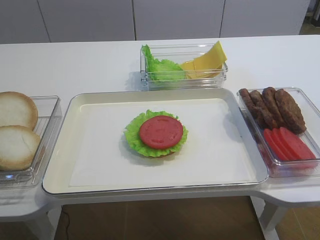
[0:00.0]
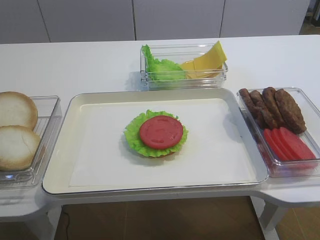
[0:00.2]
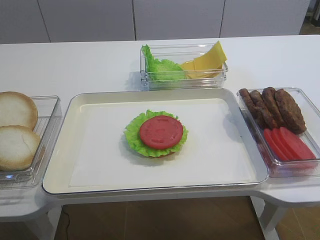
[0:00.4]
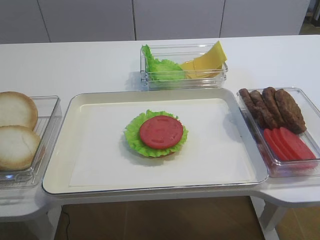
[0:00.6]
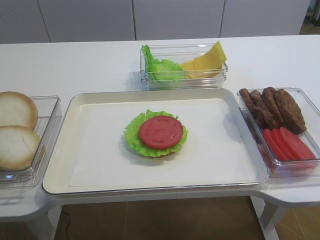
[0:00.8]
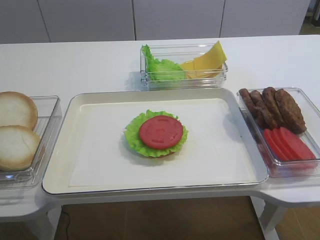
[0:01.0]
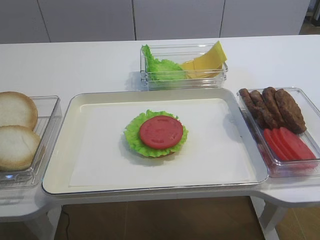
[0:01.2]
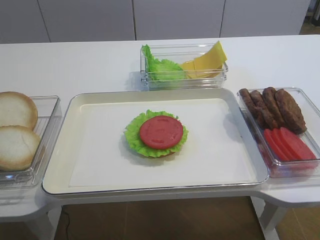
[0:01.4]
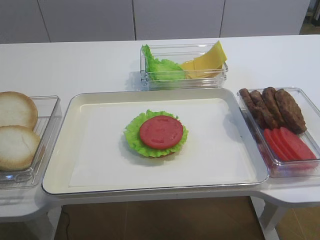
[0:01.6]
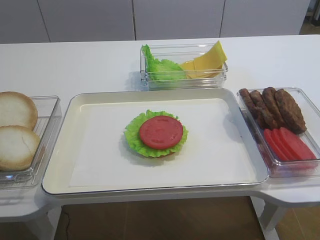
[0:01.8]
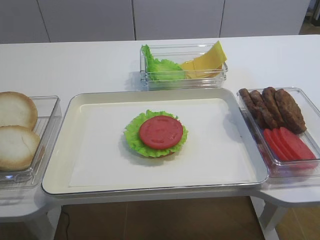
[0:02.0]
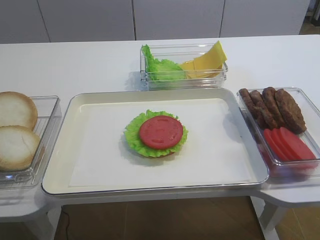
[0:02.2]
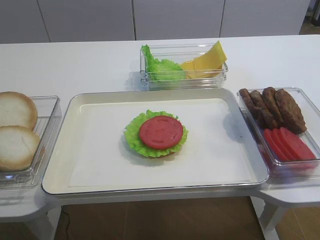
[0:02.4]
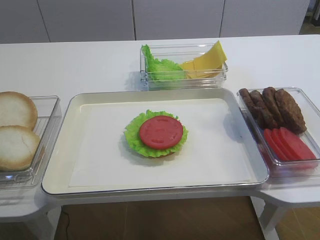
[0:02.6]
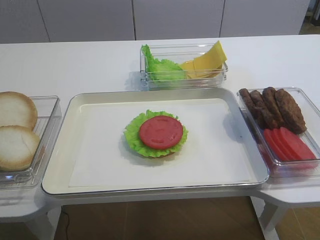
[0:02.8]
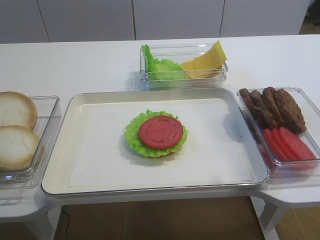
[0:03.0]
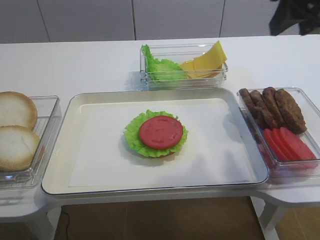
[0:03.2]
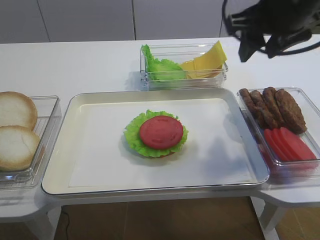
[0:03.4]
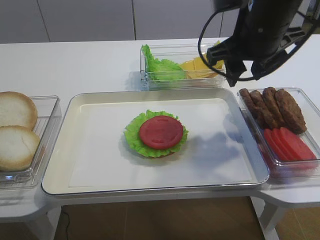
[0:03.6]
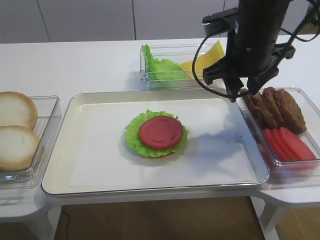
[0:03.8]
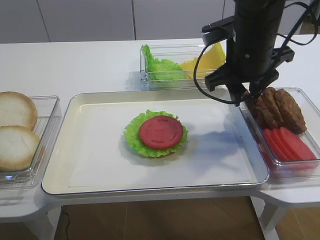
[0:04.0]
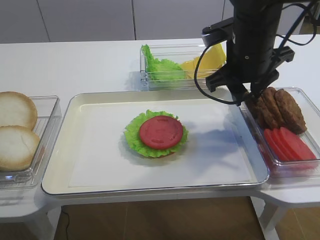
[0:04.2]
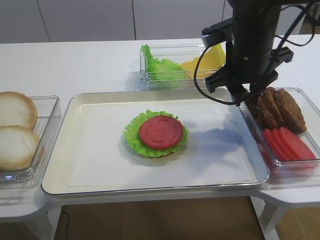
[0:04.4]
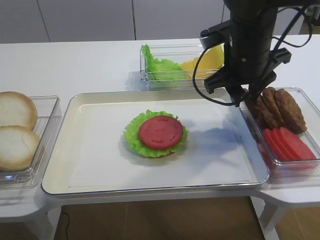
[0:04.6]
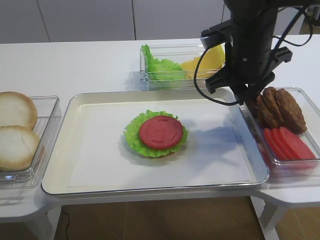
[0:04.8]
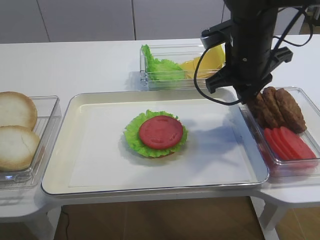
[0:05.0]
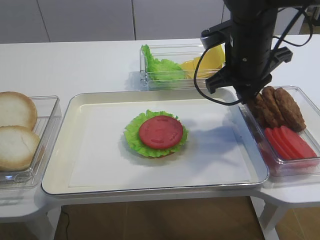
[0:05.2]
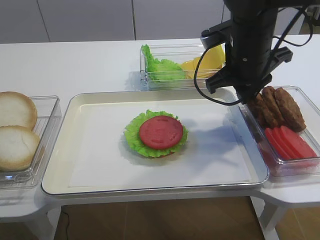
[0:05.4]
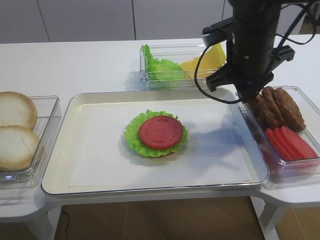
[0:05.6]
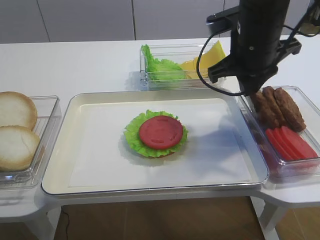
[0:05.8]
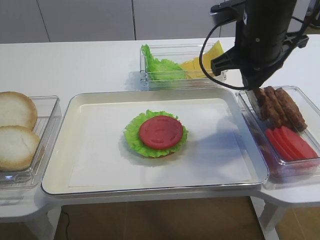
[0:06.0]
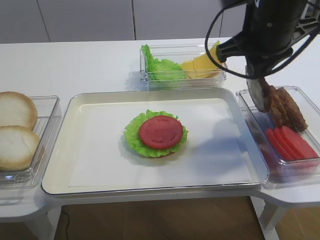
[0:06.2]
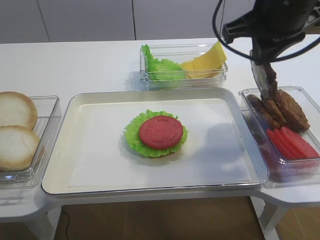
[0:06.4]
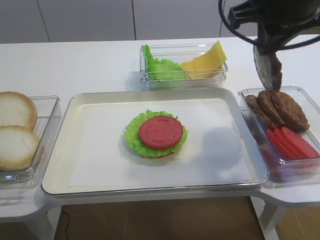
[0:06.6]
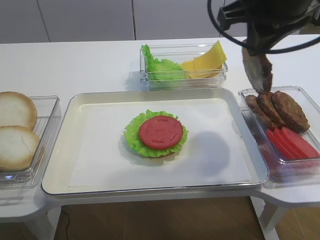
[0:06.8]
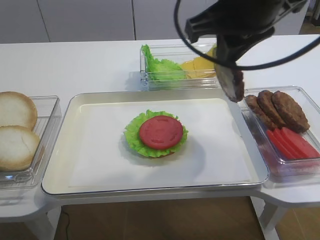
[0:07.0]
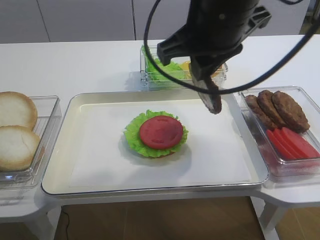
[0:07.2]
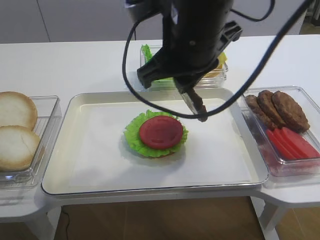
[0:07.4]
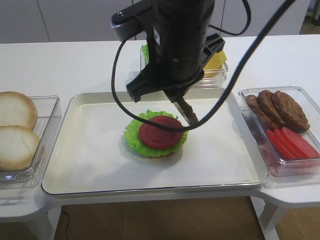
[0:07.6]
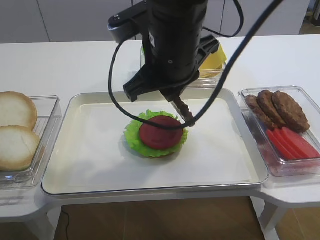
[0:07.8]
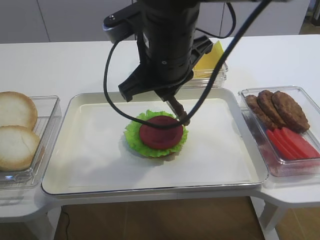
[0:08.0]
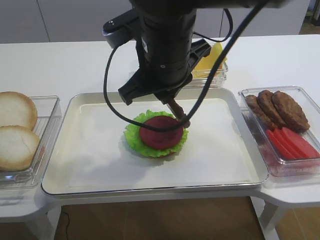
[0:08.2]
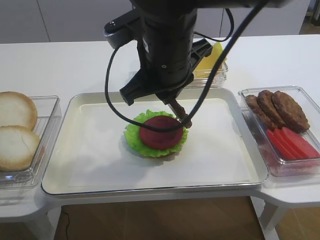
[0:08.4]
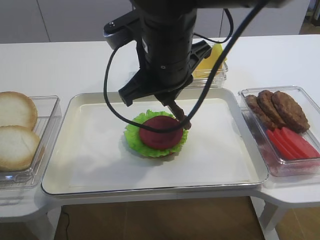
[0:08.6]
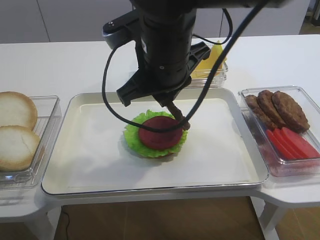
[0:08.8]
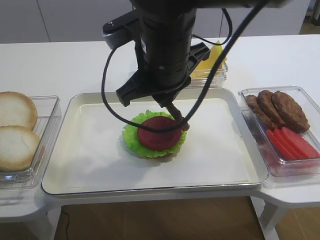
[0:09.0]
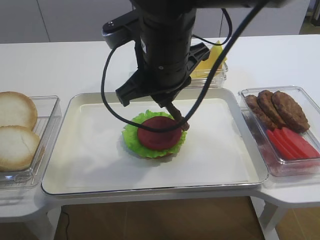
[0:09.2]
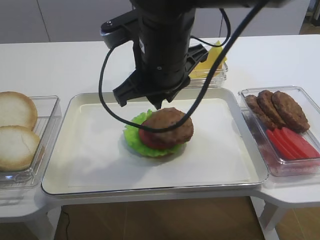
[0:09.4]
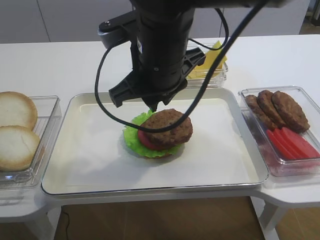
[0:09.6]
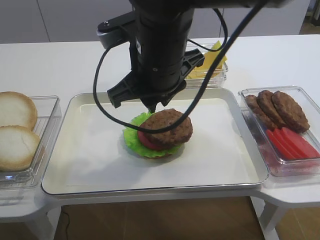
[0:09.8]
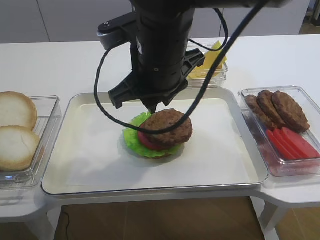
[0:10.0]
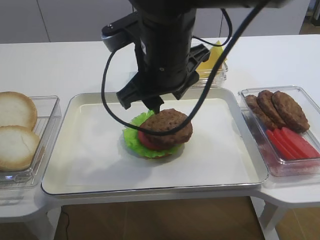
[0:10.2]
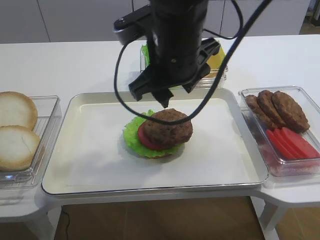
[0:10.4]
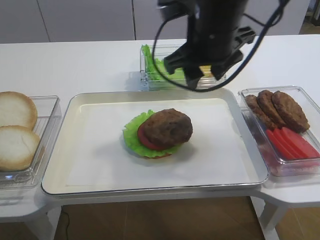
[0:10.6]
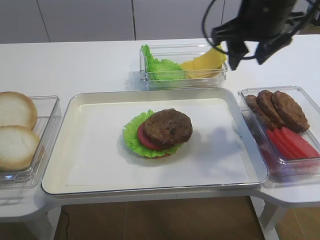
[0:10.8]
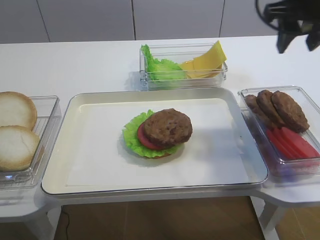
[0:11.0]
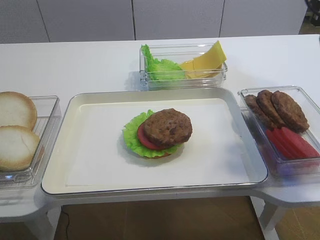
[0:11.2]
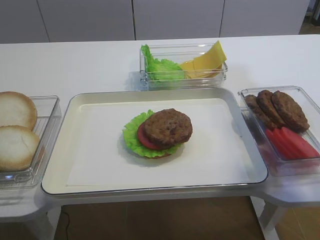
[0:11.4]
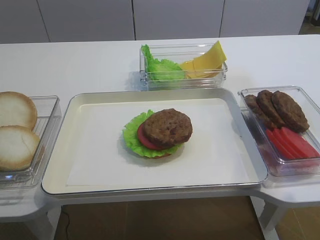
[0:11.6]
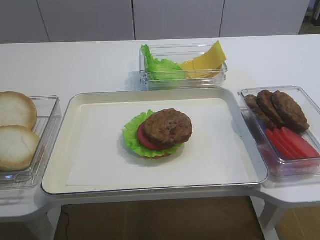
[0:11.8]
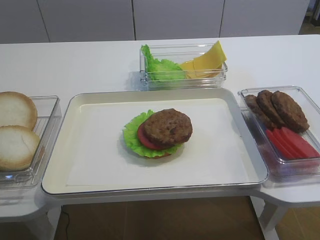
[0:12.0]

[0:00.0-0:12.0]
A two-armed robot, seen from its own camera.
Step, 0:00.0 to 0:05.8: Pick up the cutlet with the right gripper.
Step, 0:06.0 to 0:09.4: Place the cutlet on the tomato slice with the right gripper.
0:01.6 to 0:03.0: The right gripper moves forward and upward, approximately 25 cm.
0:03.0 to 0:04.4: The right gripper shifts roughly 20 cm downward, forward and to the left.
0:04.4 to 0:06.0: The right gripper closes up.
0:06.0 to 0:07.6: The right gripper travels to the left and backward by roughly 15 cm.
0:07.6 to 0:09.0: There are only small adjustments of the grippers.
0:09.0 to 0:10.4: The right gripper opens its fingers.
0:10.4 to 0:12.0: The right gripper heads to the right and backward, covering approximately 30 cm.

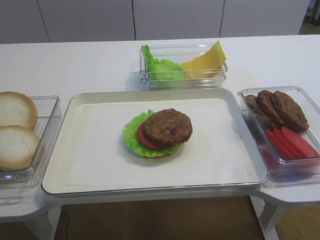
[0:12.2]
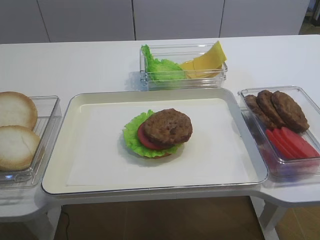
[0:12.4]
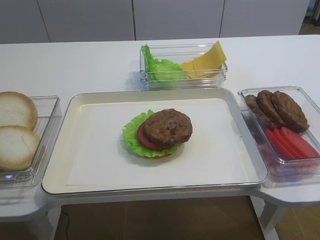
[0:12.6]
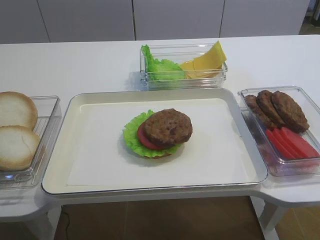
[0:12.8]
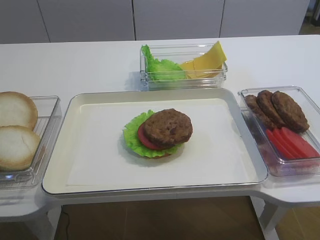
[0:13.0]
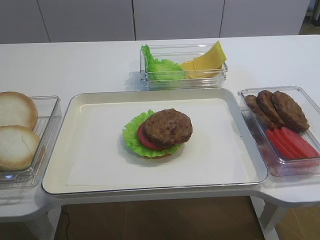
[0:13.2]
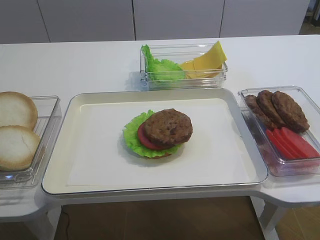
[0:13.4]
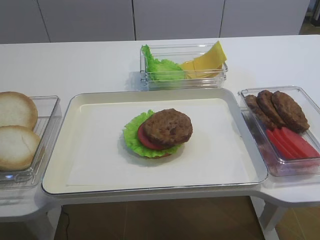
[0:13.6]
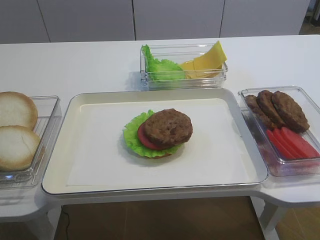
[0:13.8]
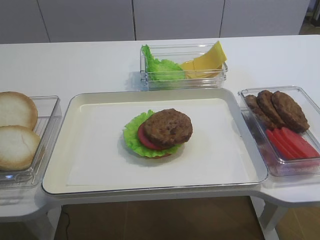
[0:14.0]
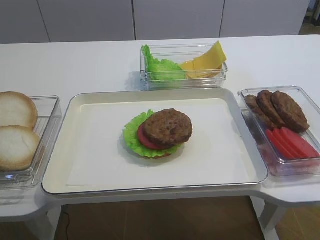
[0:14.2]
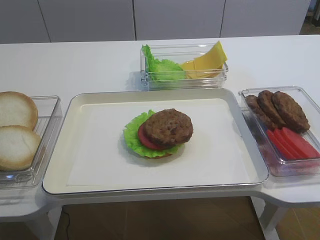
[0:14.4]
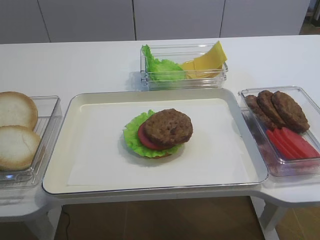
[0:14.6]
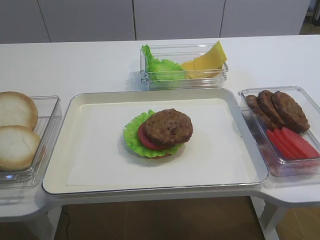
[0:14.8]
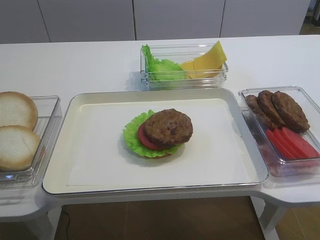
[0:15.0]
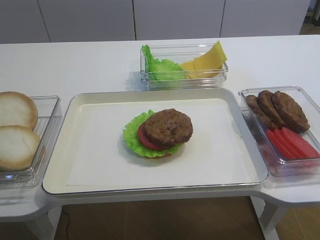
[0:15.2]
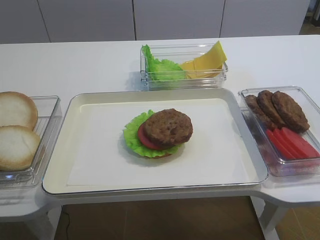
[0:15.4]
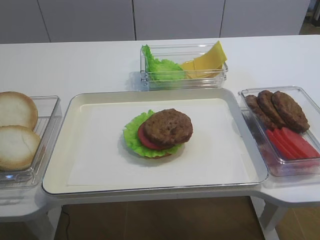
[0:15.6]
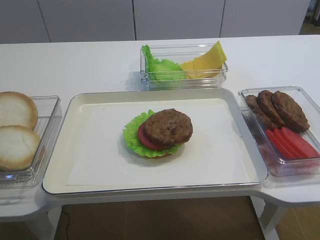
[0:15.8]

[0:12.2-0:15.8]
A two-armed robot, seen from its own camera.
0:12.2 to 0:14.0: The right gripper travels backward and downward by about 10 cm.

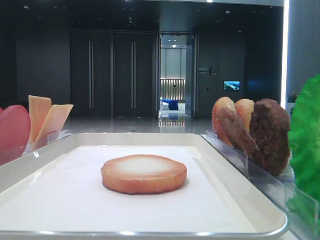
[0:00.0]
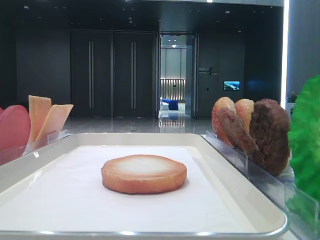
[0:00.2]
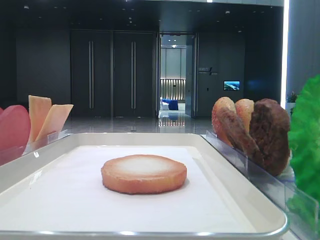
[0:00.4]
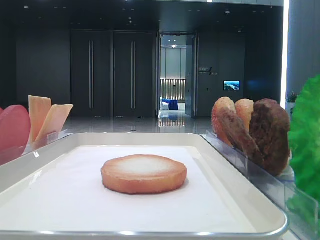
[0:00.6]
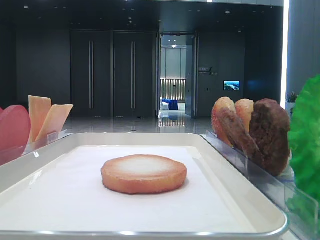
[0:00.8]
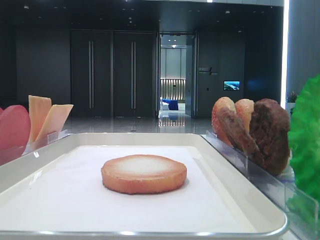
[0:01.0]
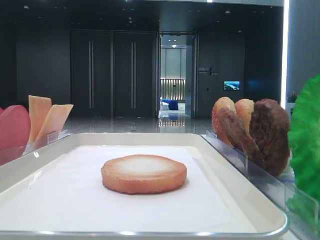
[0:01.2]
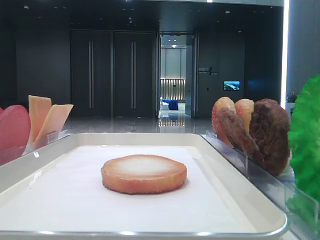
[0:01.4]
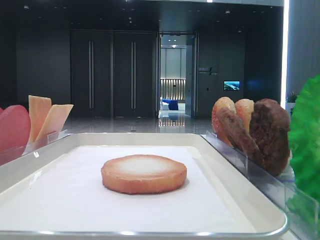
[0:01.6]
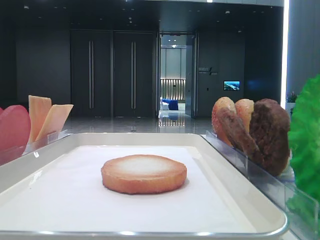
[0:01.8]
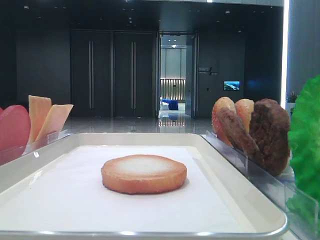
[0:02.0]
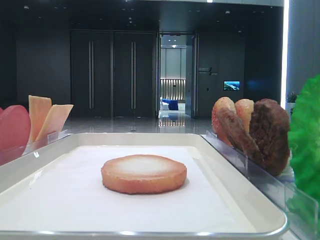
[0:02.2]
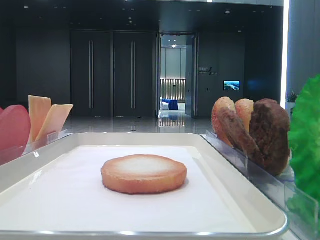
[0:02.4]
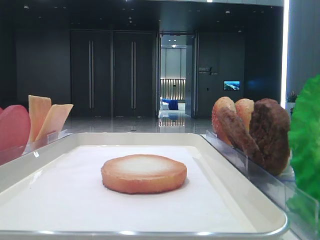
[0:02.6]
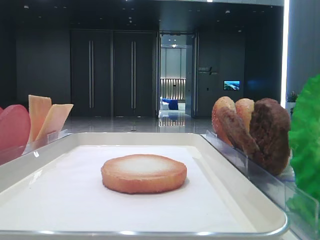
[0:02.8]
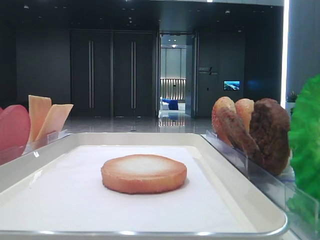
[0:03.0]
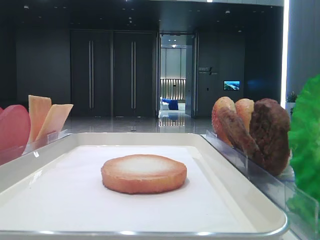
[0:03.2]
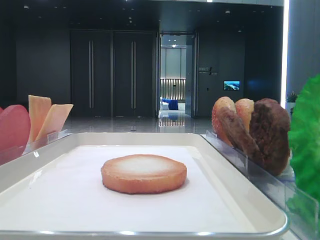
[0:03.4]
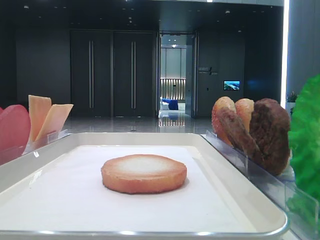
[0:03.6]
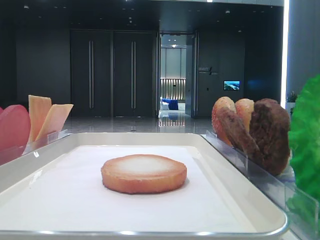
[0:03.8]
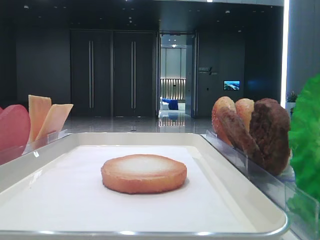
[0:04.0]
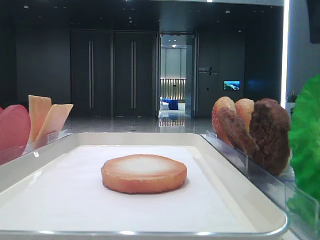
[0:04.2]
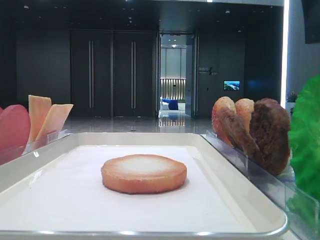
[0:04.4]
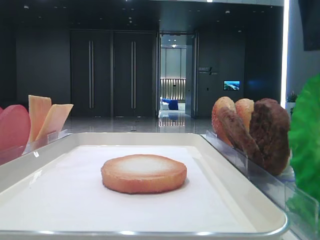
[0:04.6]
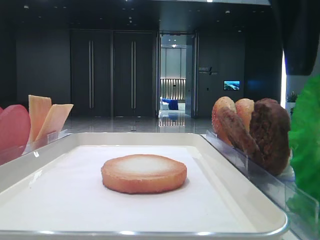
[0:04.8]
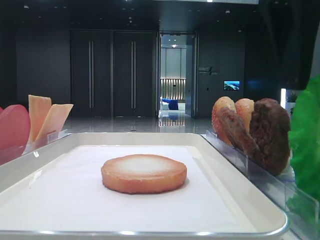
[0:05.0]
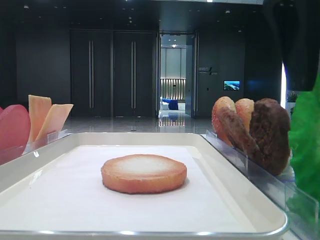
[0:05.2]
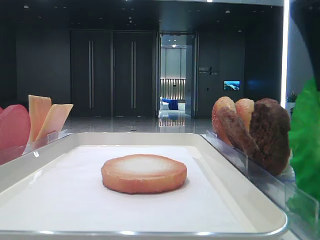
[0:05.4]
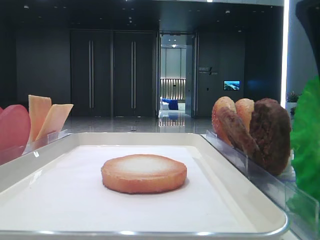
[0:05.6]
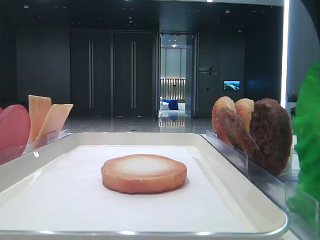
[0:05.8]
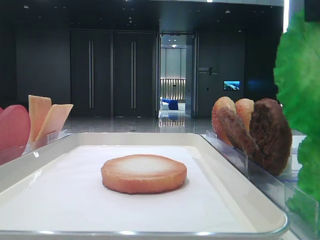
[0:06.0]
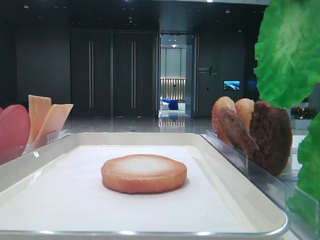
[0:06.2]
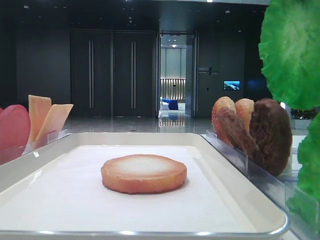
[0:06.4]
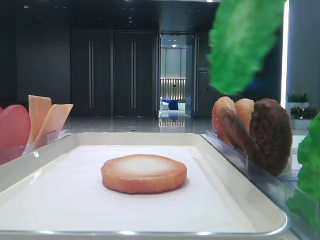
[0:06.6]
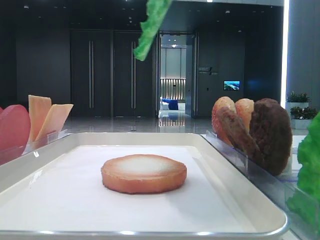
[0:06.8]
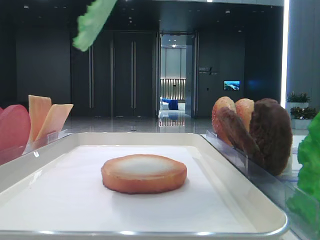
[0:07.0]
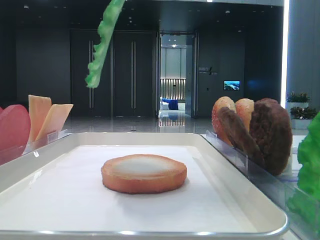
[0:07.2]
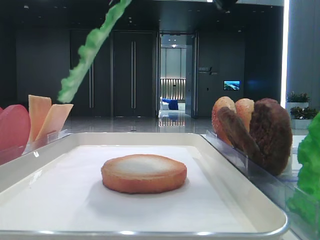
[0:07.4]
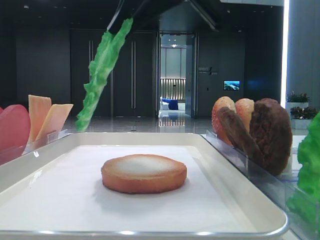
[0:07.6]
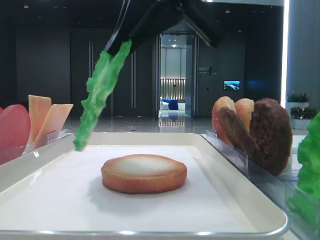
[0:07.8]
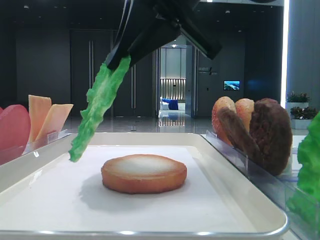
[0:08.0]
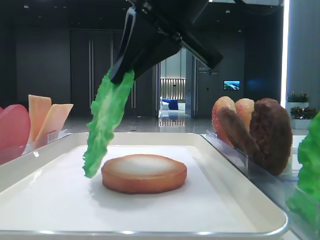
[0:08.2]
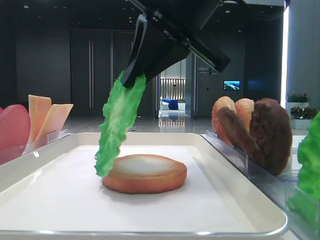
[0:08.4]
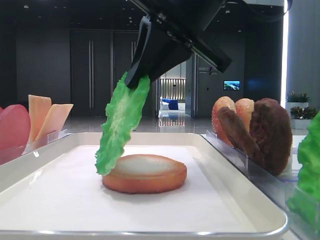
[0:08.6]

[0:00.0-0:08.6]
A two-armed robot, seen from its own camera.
Step, 0:00.0 to 0:05.6: Grab the lettuce leaf with the right hand.
0:02.8 to 0:04.4: The right gripper heads to the left, covering roughly 15 cm.
0:04.4 to 0:05.8: The right gripper closes up.
0:05.8 to 0:07.2: The right gripper shifts some 10 cm to the left.
0:07.2 to 0:08.6: The right gripper goes some 10 cm downward.
